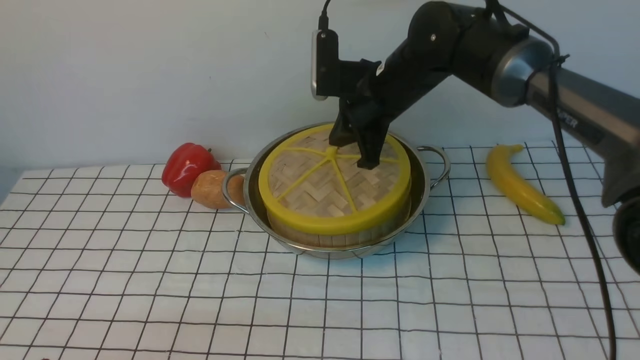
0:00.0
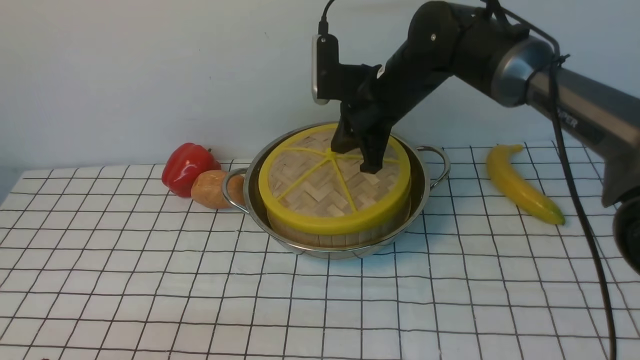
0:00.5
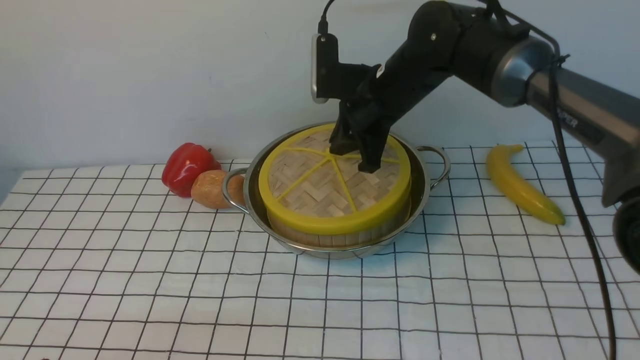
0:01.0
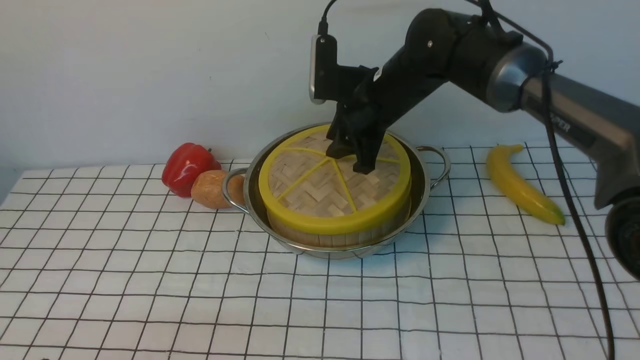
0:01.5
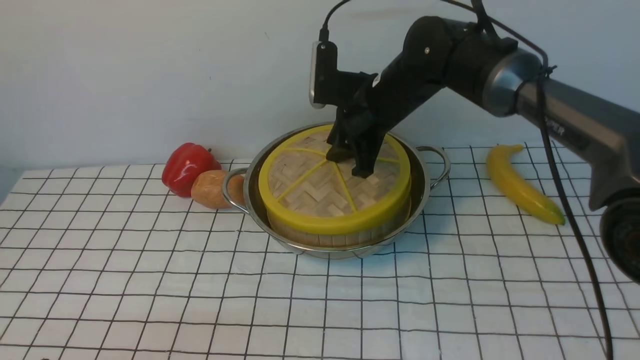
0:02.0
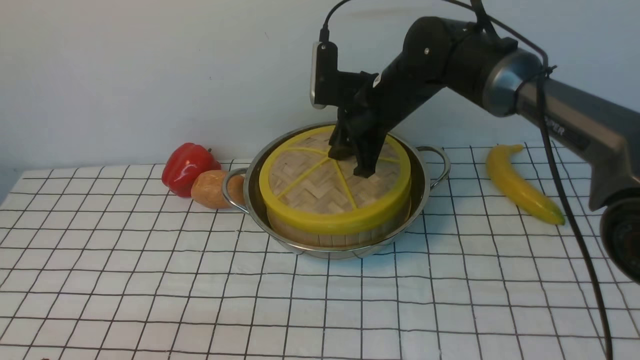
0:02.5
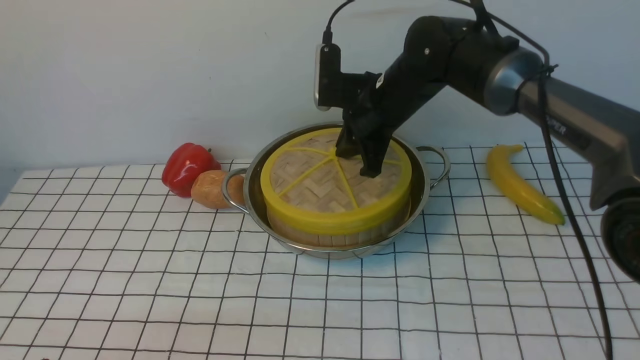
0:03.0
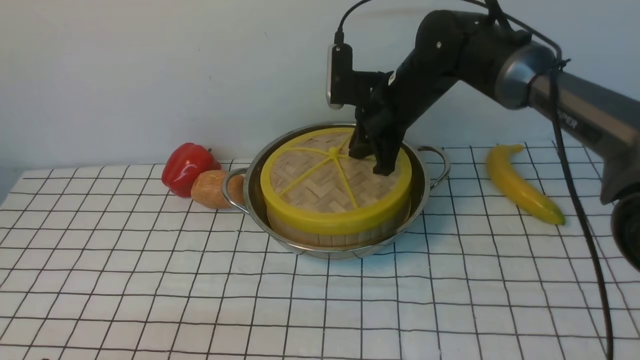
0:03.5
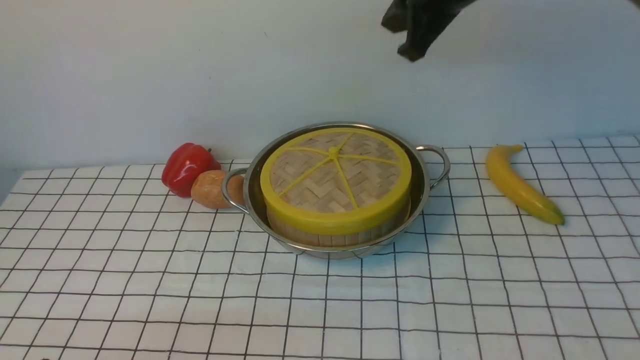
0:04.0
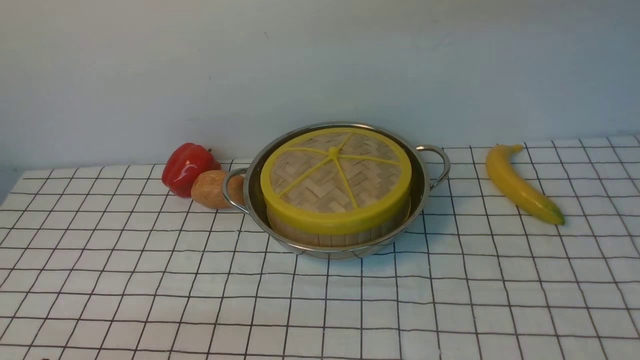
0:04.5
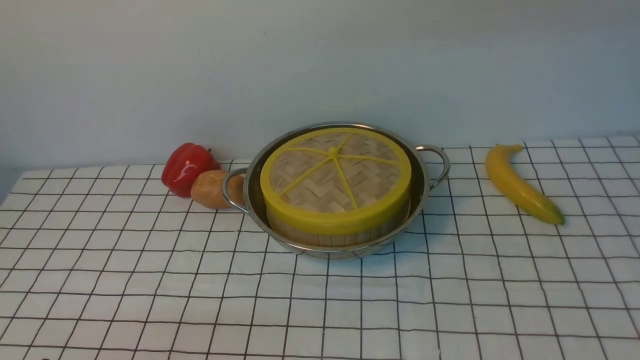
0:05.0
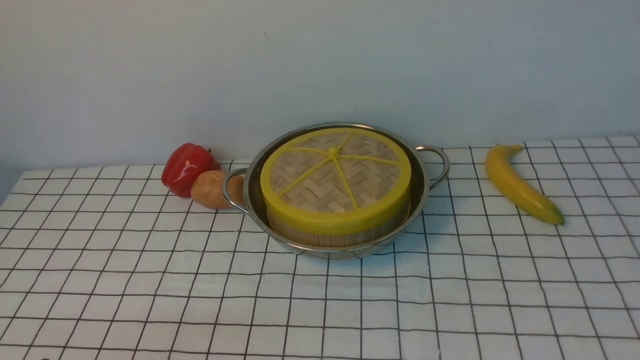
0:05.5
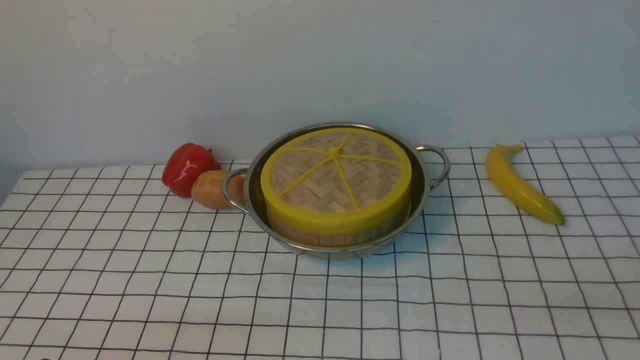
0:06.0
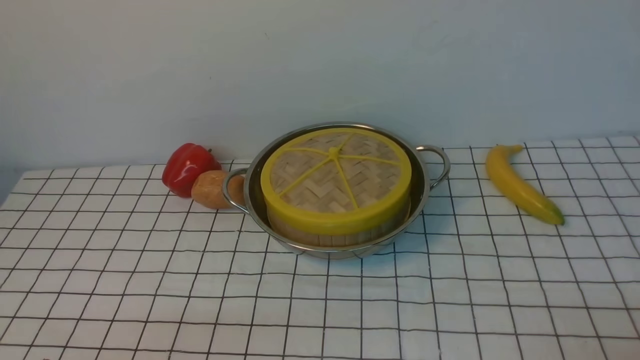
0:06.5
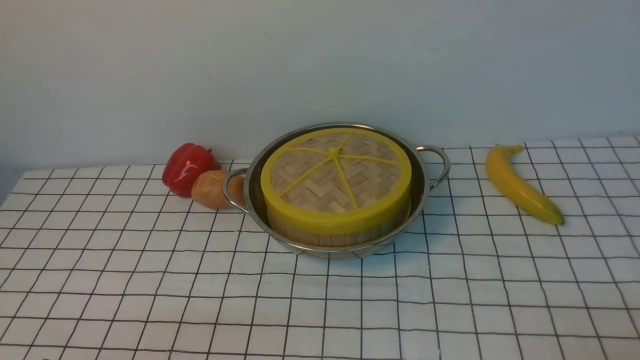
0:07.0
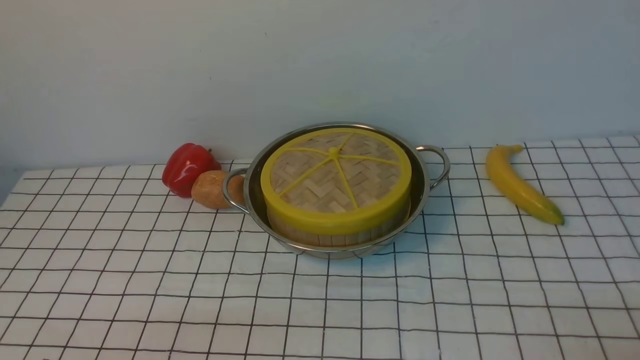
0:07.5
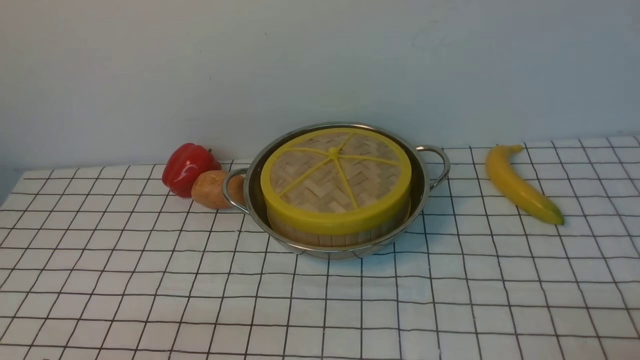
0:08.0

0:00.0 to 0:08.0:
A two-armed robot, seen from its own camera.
Task of the whole recording: place the steamer in the pot on the white tablecloth, and put the lid on the steamer.
Step, 0:00.0 to 0:03.5: use the right arm to place the steamer lid on the steamer.
0:00.0 to 0:02.0: The right gripper opens.
0:02.0 to 0:04.0: The right gripper goes approximately 15 cm upward and to the right, and closes.
0:04.0 to 0:06.0: The right gripper goes some 40 cm backward, to the right and downward.

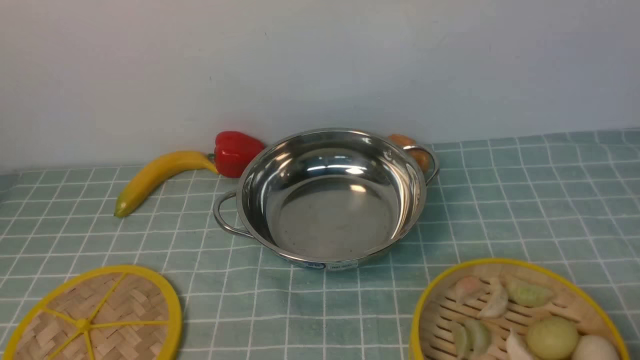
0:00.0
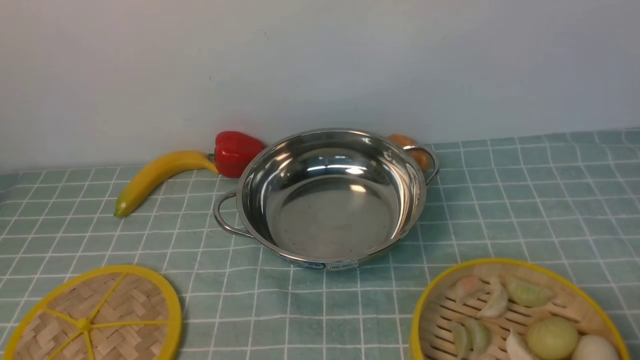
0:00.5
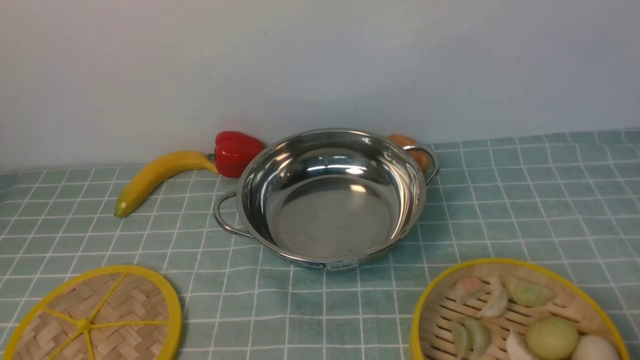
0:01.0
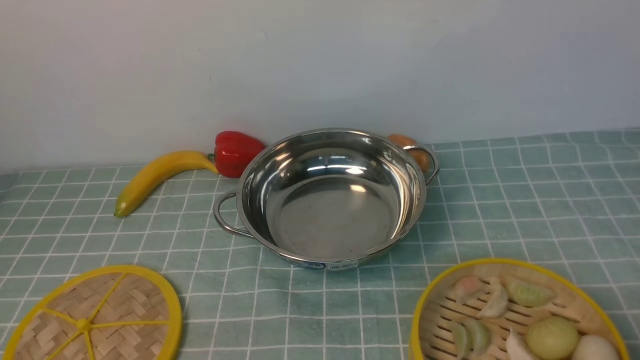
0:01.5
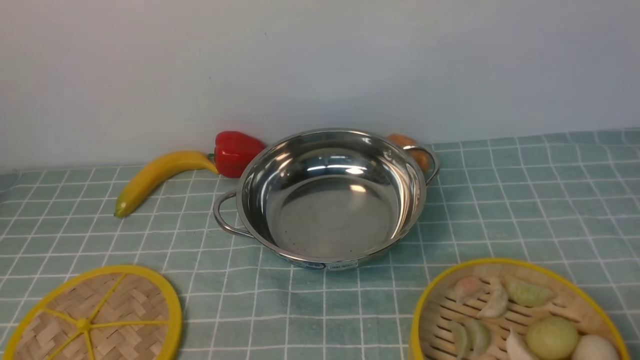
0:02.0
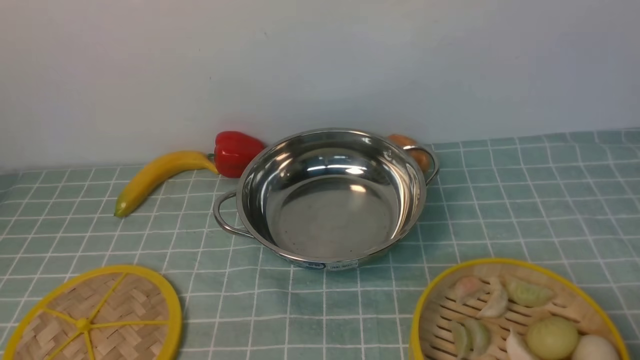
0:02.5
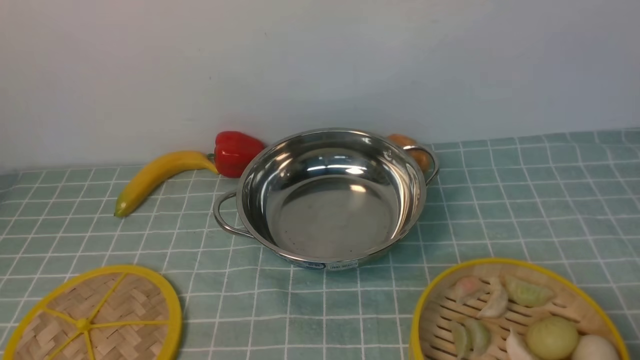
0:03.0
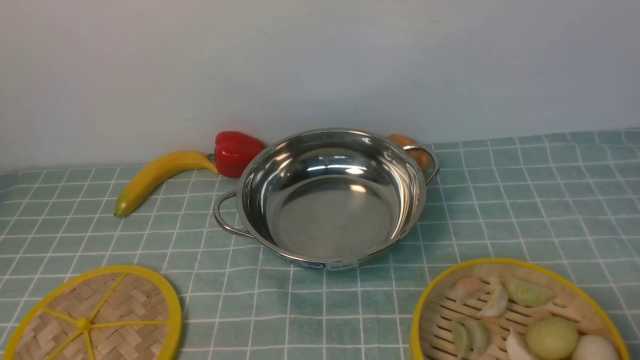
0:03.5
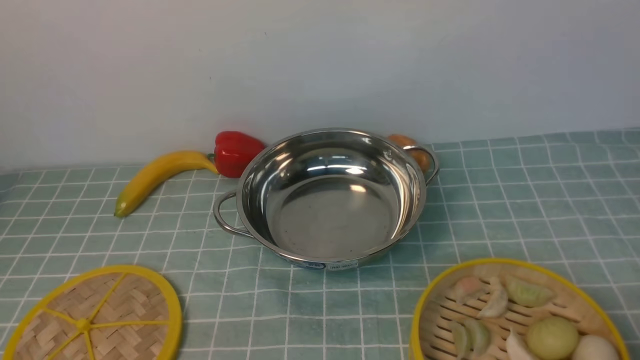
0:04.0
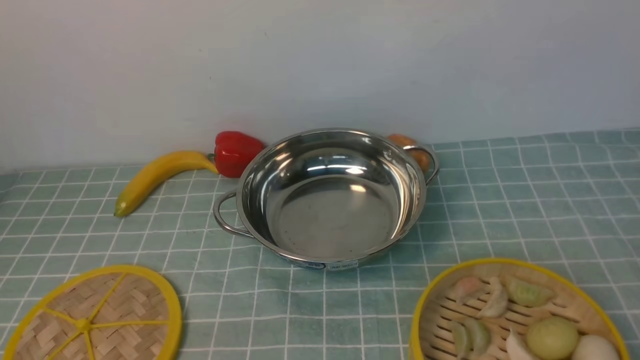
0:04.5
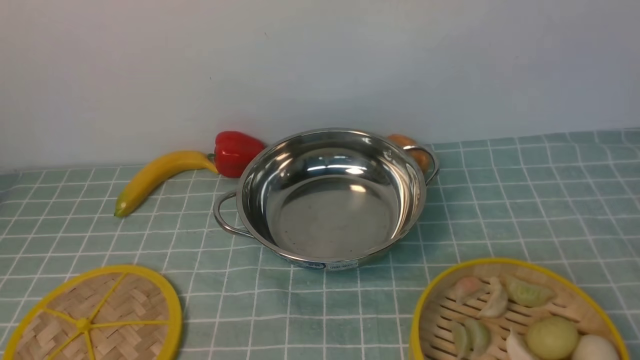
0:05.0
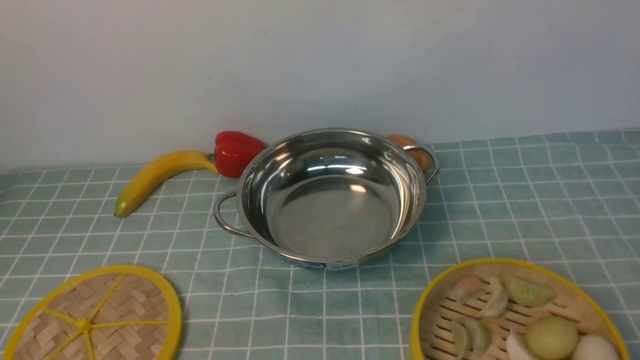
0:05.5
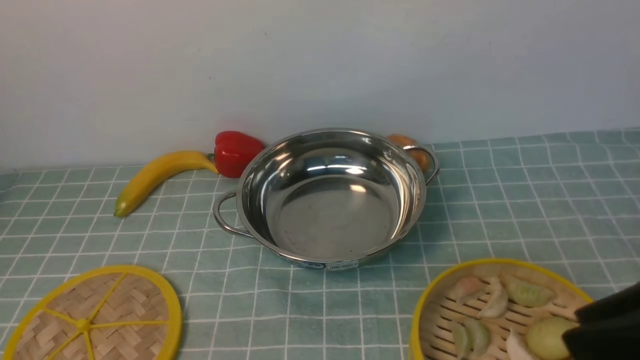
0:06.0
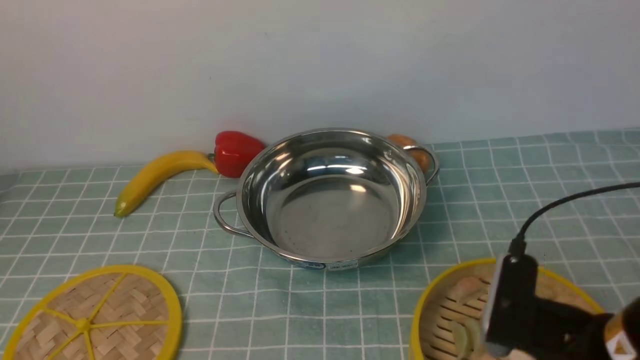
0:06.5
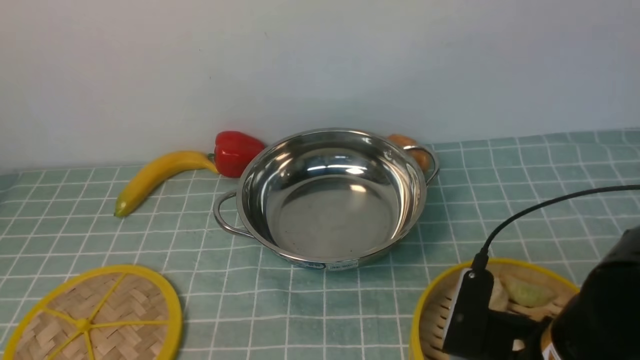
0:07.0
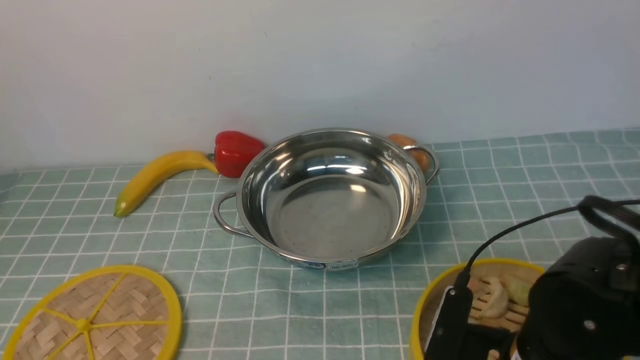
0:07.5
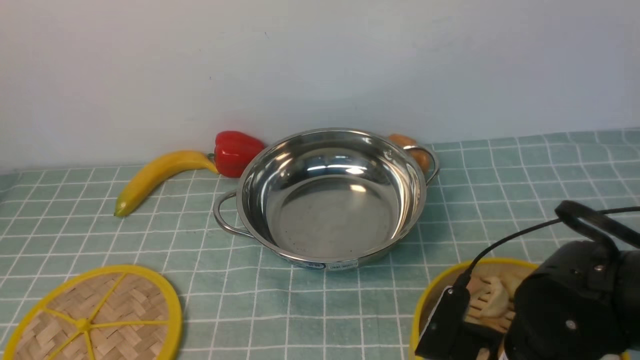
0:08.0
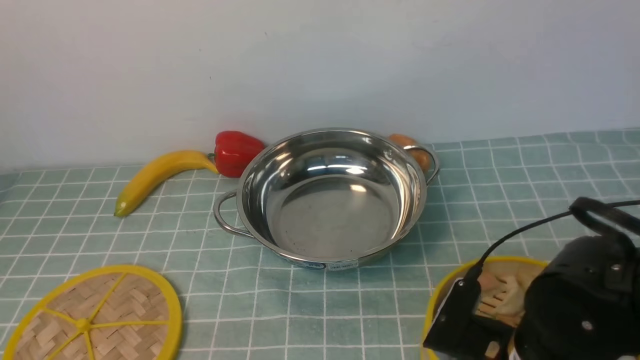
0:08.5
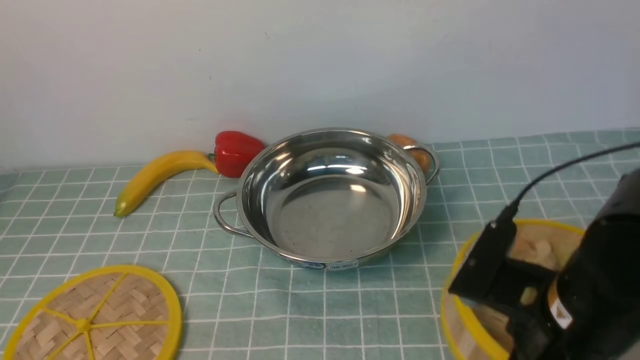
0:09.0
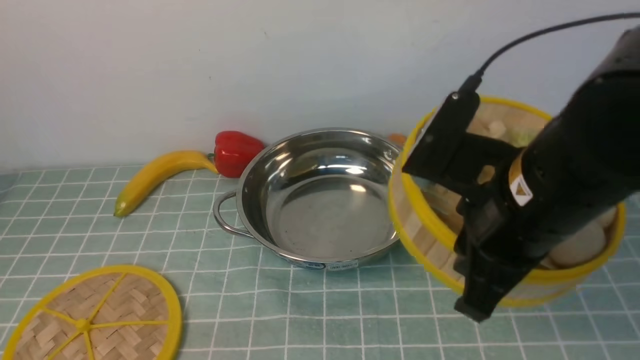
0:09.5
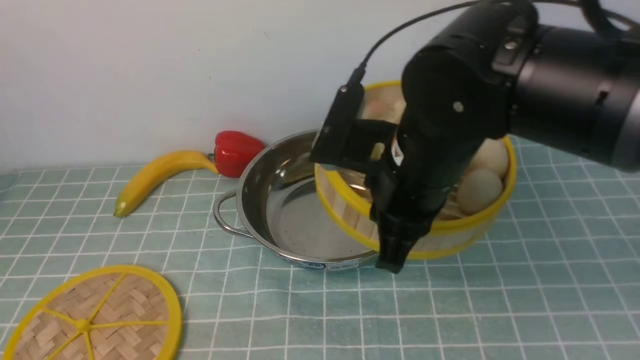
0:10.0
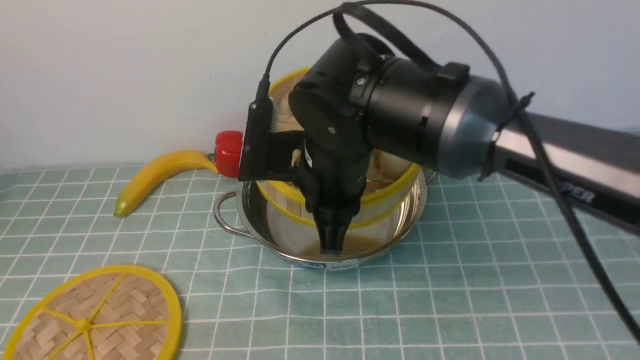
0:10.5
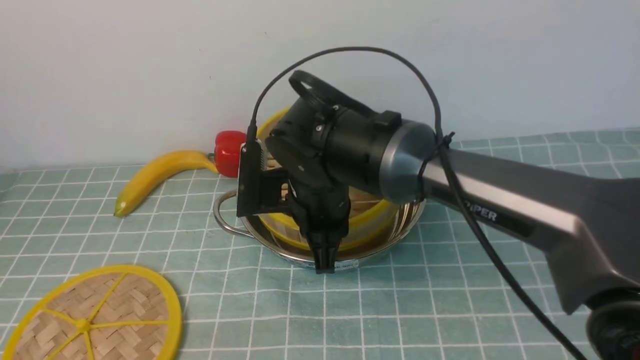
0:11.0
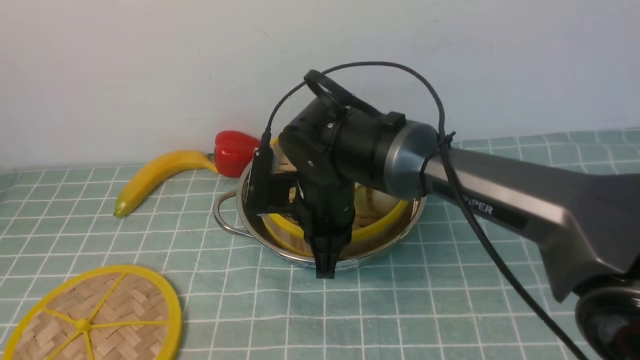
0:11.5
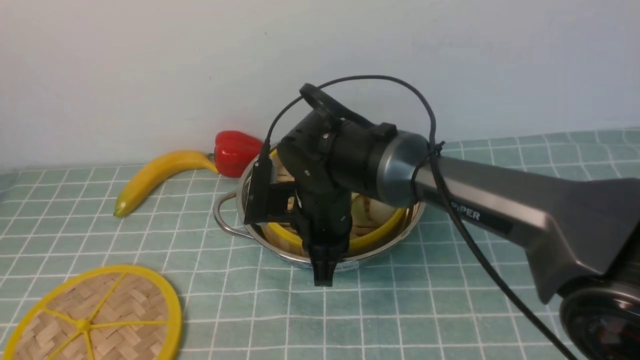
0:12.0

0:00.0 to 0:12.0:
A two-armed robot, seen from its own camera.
Task of the whole recording: place the steamer in the pot on the blue tablecloth, and put the lid on the steamer.
Step, 0:00.0 to 0:09.0: use the right arm to lift the steamer closest to it.
0:00.0 to 0:02.0: The two grippers keep their place.
0:04.0 to 0:06.0: The right gripper is displaced upward, to the left and forward by some 15 cm.
0:06.0 to 0:08.0: The right gripper heads downward and to the left, covering approximately 15 cm.
0:08.0 to 0:10.0: The right gripper heads upward, forward and to the left, covering approximately 20 cm.
0:10.0 to 0:12.0: The right gripper moves downward, to the left and forward, roughly 15 cm.
